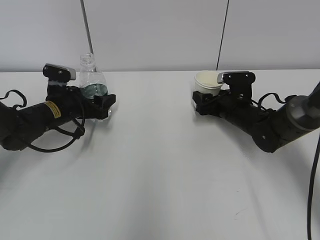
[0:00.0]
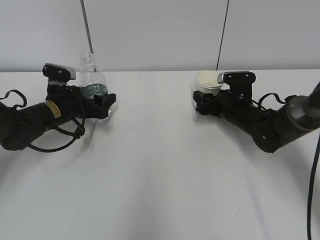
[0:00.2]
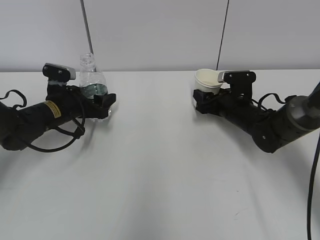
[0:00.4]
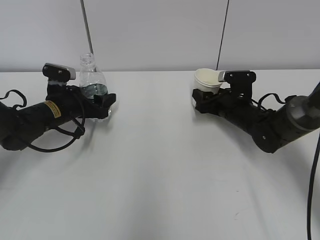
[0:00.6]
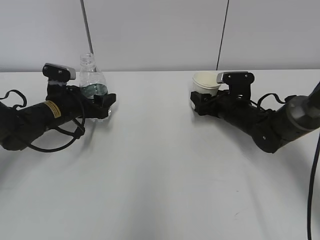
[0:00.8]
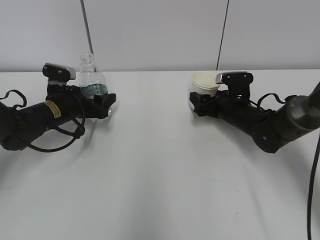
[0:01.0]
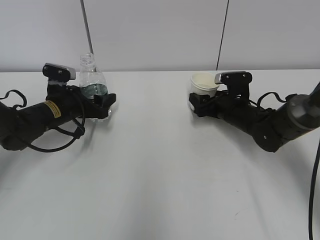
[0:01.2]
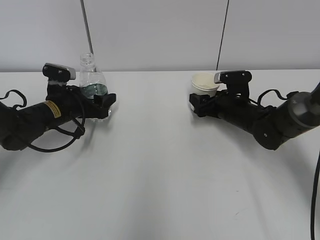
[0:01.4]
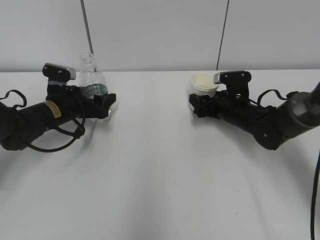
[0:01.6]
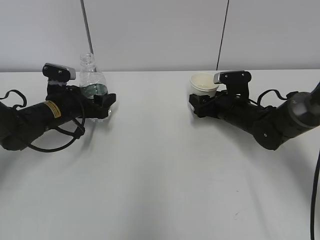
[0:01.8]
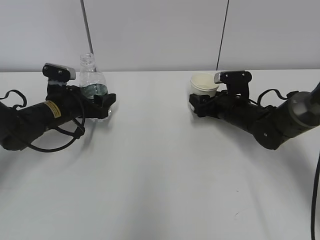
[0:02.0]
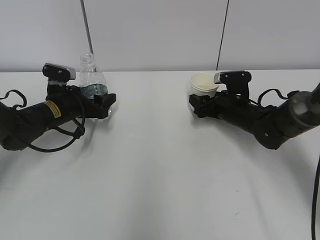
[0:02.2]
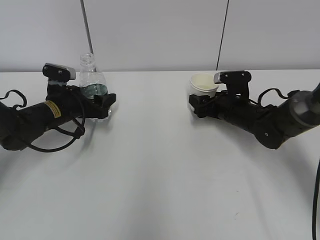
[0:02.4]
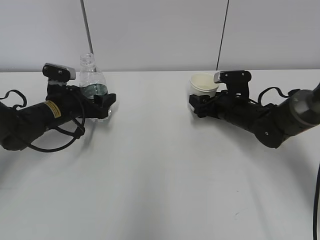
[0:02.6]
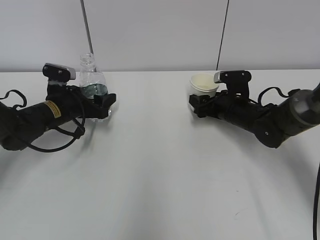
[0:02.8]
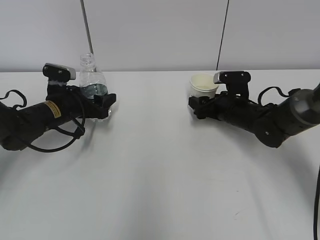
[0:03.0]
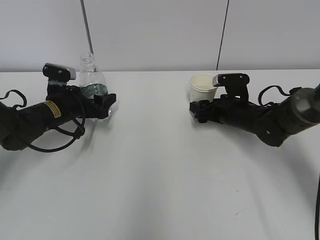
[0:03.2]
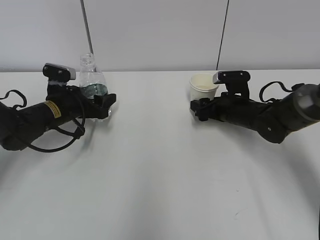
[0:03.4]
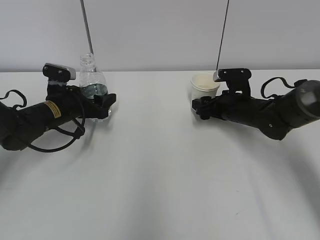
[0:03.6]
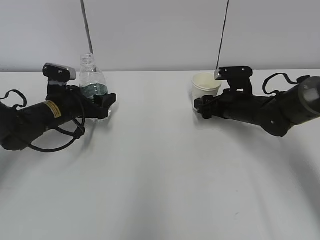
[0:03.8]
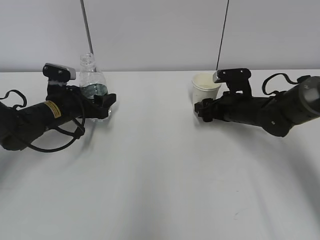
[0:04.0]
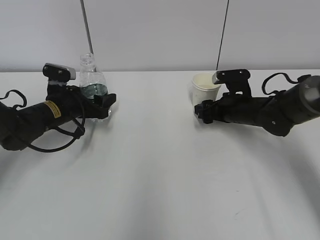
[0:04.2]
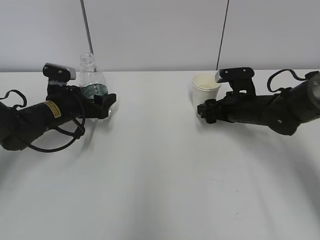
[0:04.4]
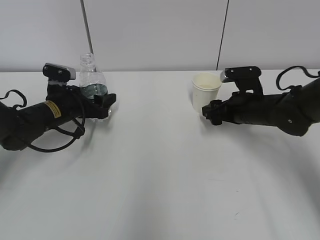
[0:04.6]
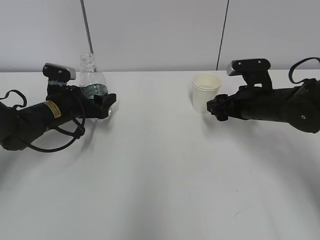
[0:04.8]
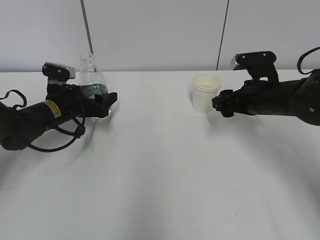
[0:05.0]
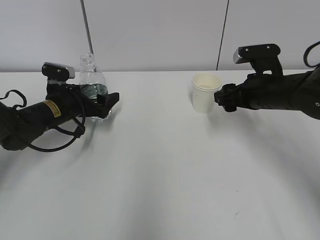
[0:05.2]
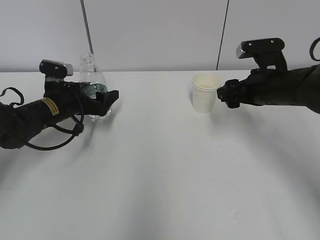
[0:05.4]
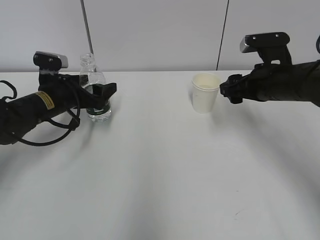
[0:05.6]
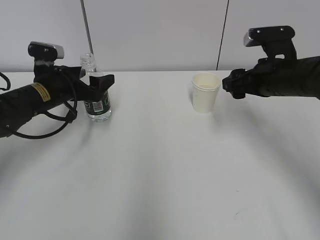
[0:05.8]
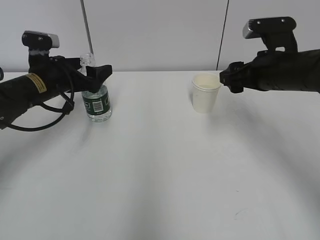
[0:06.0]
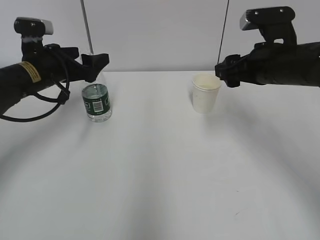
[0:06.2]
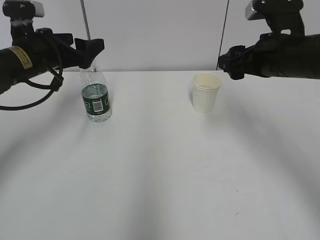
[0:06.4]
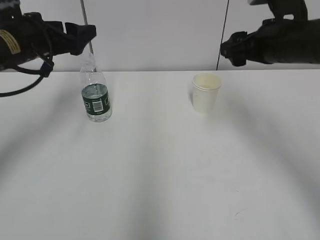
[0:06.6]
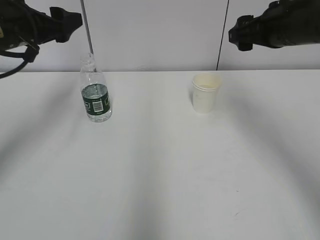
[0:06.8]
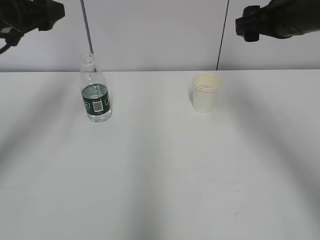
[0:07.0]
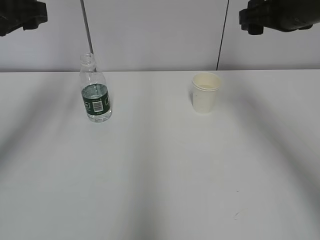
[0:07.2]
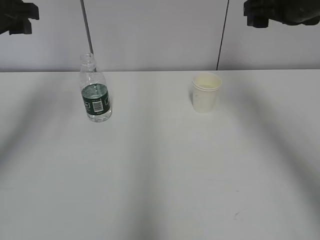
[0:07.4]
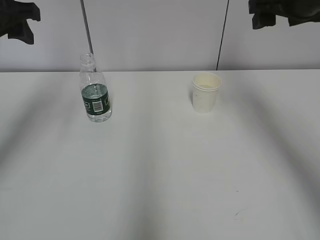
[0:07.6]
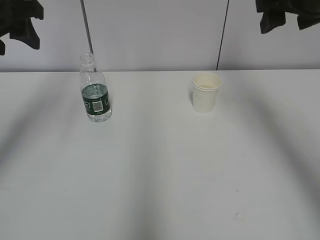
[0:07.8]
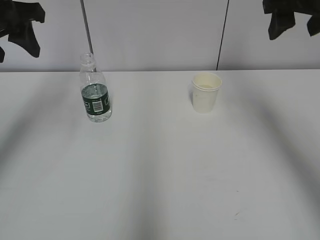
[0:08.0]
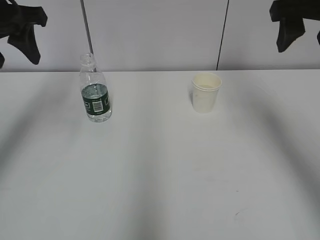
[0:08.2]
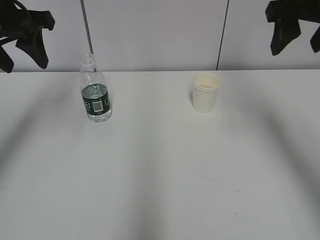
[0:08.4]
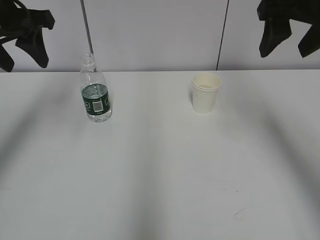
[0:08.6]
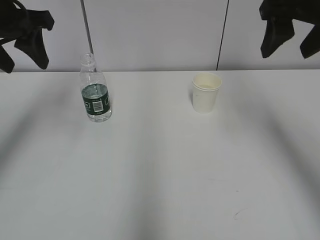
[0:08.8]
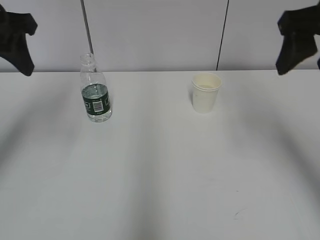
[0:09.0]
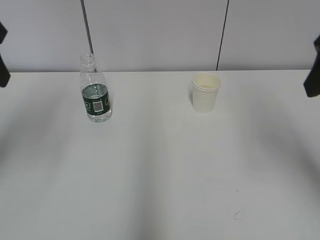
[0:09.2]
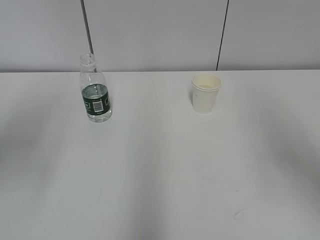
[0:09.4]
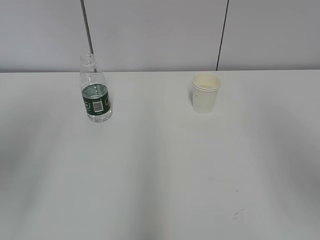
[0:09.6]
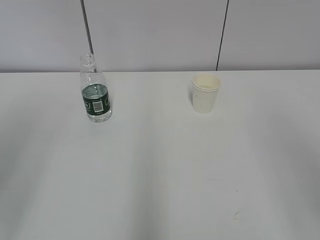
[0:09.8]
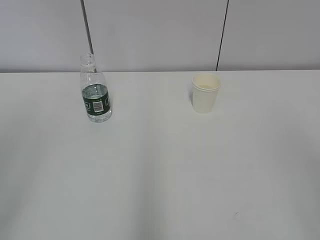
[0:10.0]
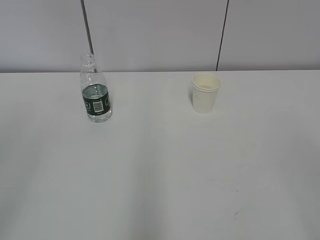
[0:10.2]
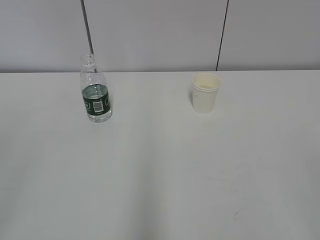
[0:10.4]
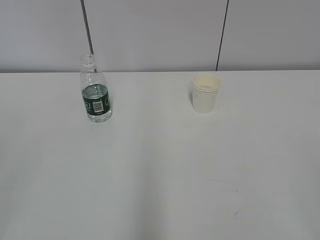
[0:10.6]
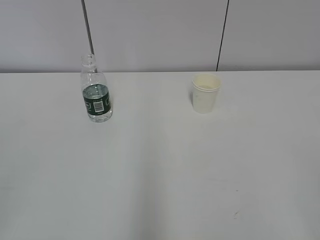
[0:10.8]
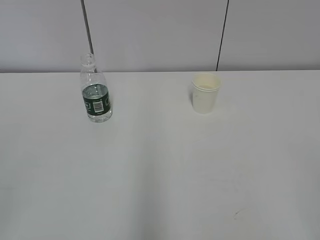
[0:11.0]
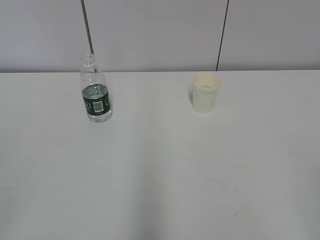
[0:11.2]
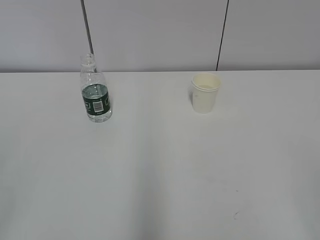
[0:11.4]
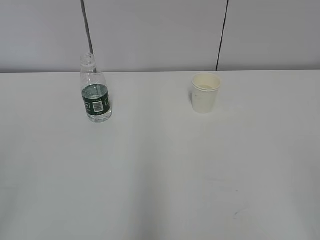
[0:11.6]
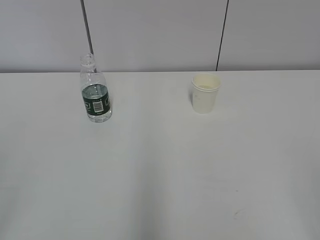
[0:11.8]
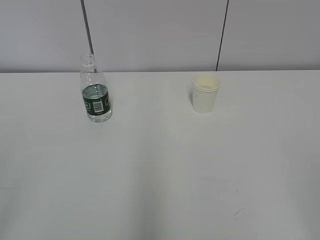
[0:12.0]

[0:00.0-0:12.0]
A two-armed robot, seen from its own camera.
Step, 0:00.0 to 0:04.0: Place the paper cup with the right gripper.
0:00.0 to 0:01.6: Both grippers stay put.
0:01.6 to 0:03.0: Neither gripper changes place.
0:03.0 to 0:04.4: The grippers move only a little.
0:04.4 to 0:06.0: The left gripper moves upward, some 5 cm. The right gripper is displaced upward and backward by roughly 15 cm.
0:06.0 to 0:07.6: Both grippers move upward, approximately 15 cm. The left gripper closes up.
0:07.6 to 0:09.0: The right gripper shifts roughly 10 cm backward.
0:09.0 to 0:10.4: Both grippers travel together backward, roughly 30 cm.

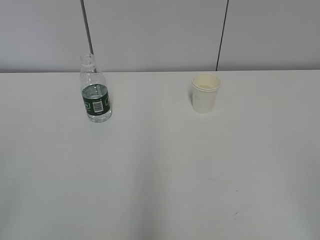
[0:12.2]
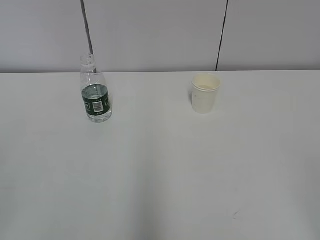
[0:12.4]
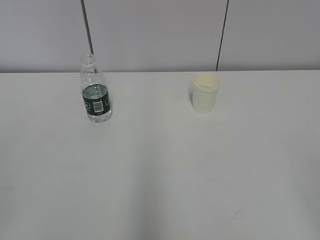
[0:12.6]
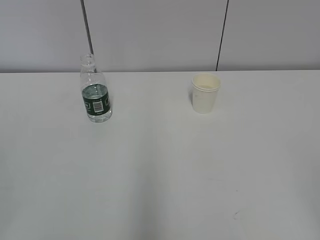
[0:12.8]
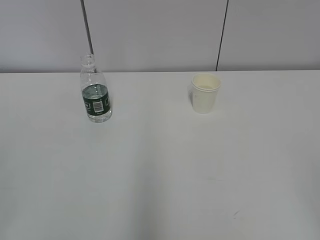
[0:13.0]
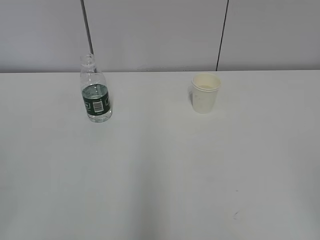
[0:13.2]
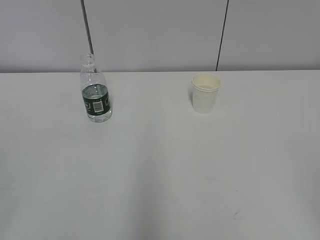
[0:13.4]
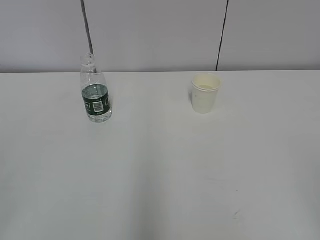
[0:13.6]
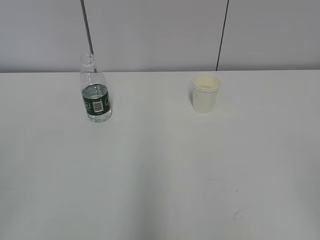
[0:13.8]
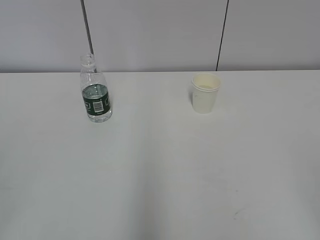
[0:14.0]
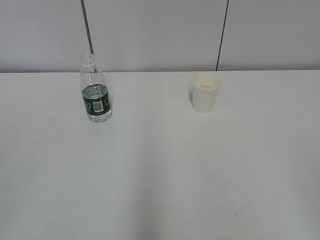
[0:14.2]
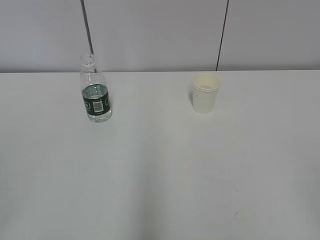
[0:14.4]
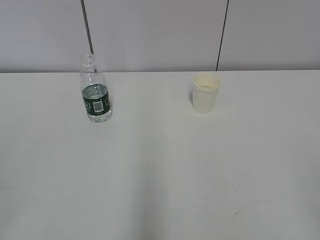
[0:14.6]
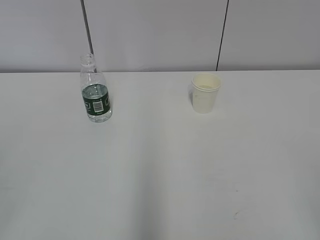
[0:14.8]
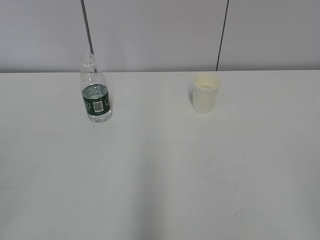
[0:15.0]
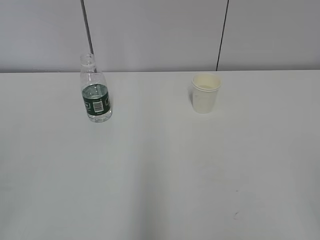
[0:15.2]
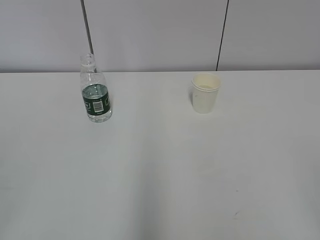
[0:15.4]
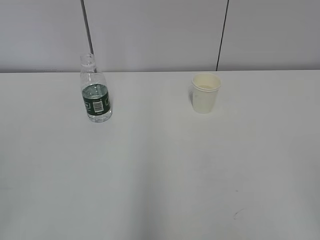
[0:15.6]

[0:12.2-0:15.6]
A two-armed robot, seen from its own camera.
0:13.8 to 0:15.6: The two grippers keep their place.

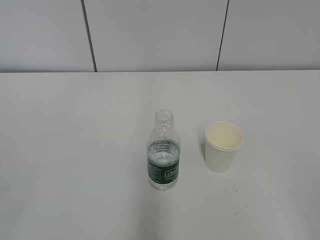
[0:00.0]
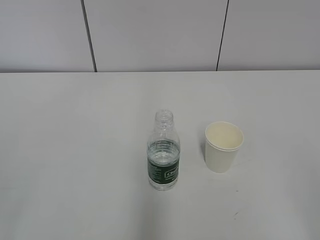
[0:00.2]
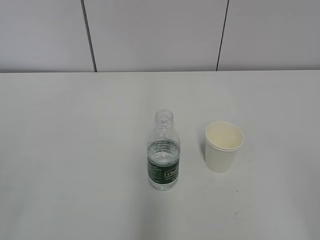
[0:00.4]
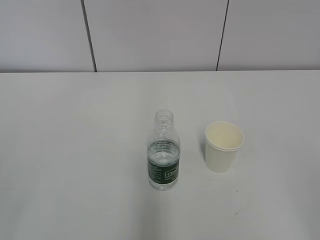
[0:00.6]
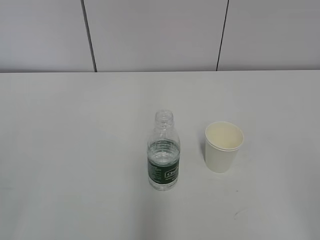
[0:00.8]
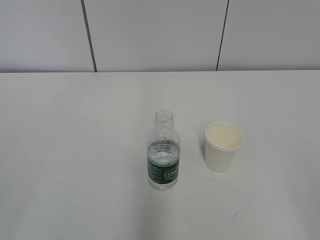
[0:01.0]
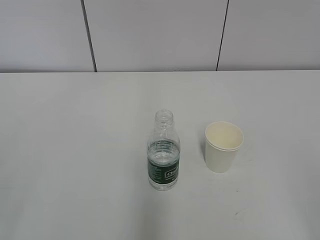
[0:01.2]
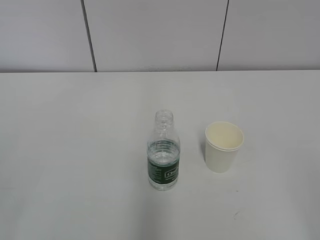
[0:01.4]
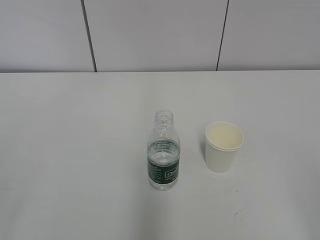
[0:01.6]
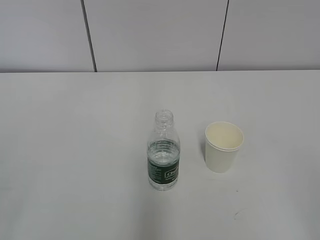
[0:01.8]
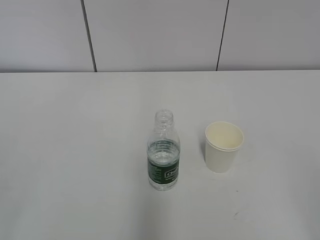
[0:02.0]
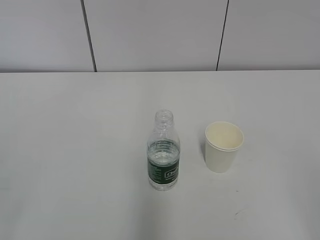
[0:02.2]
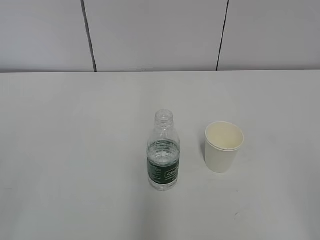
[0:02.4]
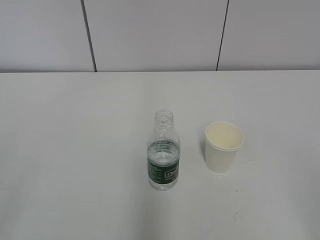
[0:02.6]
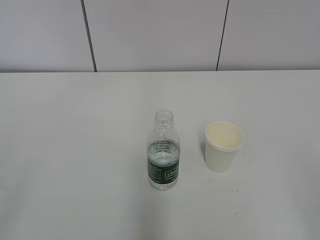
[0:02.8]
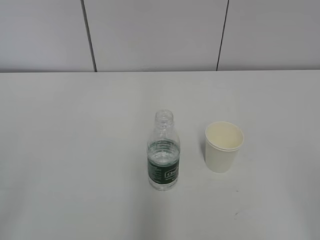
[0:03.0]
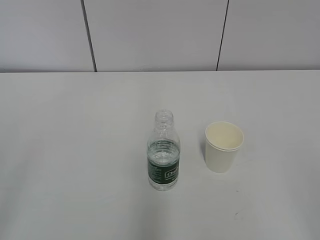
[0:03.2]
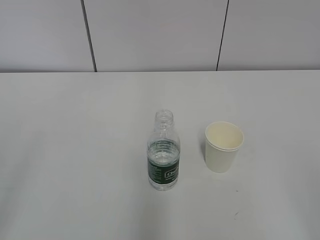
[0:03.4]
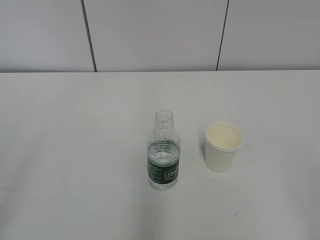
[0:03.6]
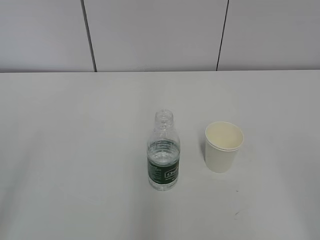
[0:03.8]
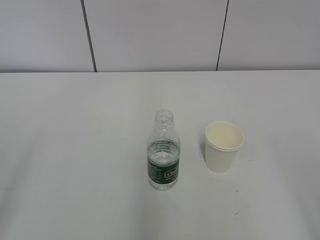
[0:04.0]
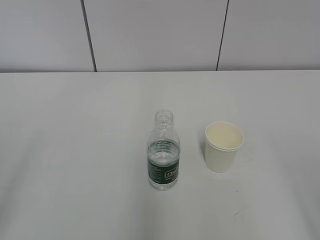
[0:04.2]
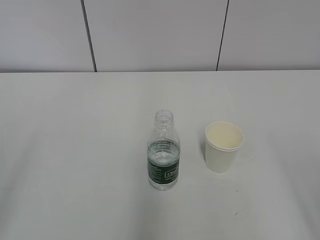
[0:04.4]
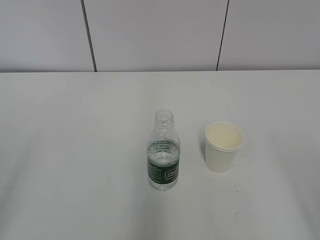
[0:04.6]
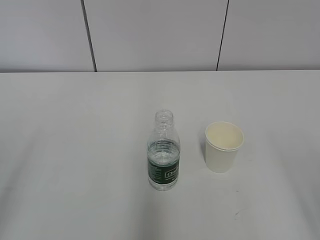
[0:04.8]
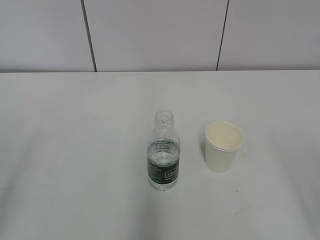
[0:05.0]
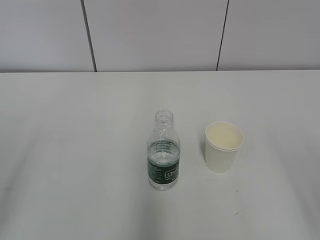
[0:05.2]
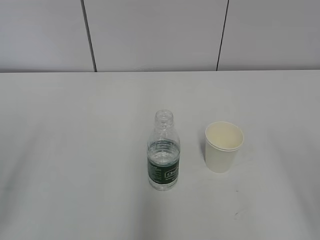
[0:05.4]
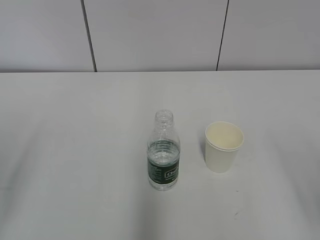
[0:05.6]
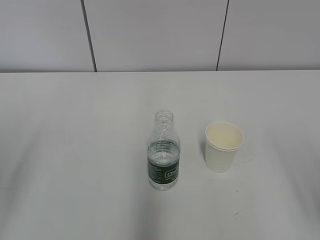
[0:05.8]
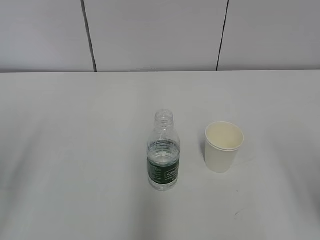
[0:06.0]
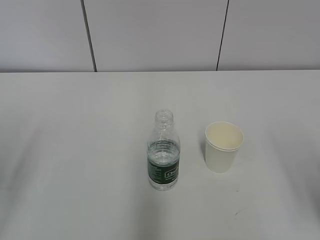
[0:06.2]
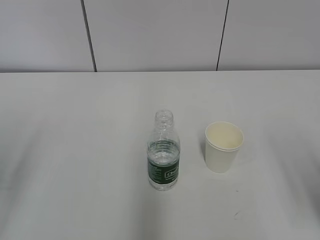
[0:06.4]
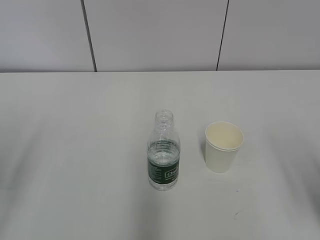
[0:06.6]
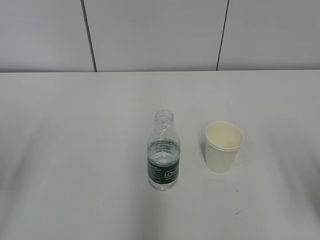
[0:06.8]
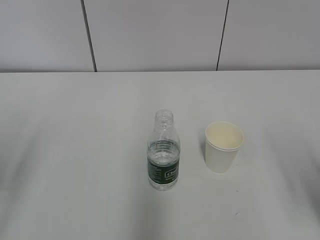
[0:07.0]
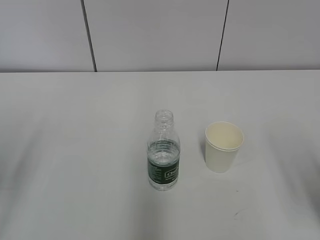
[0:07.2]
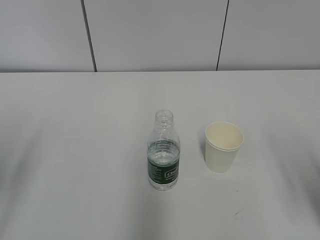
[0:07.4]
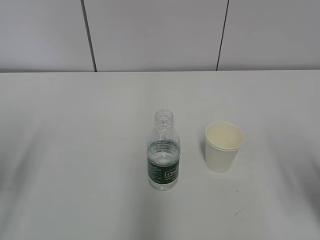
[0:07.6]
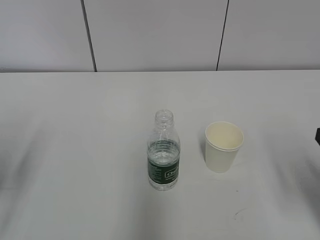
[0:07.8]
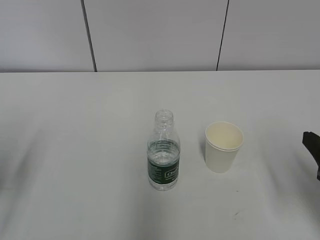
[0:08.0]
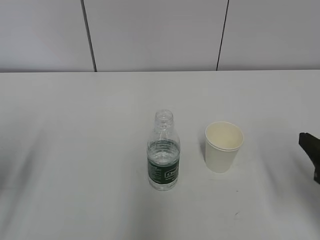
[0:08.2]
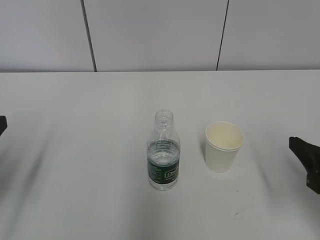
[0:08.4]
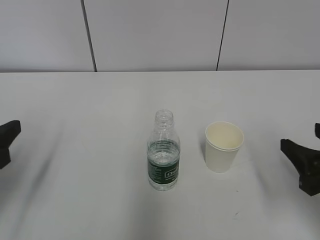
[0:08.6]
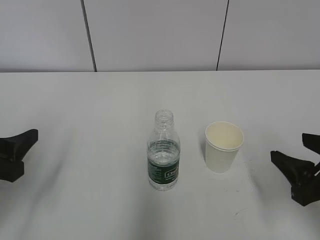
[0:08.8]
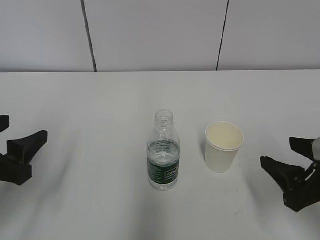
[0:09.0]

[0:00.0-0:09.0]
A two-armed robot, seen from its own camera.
0:07.6 to 0:09.0: The left gripper travels to the right by some 5 cm; the right gripper goes approximately 5 cm downward.
